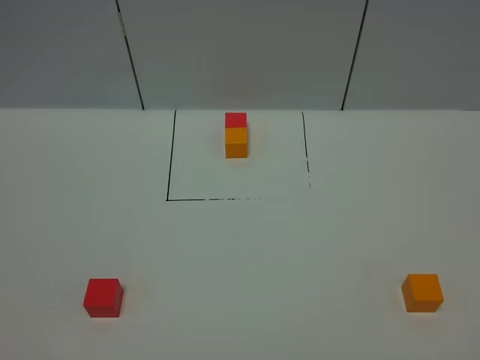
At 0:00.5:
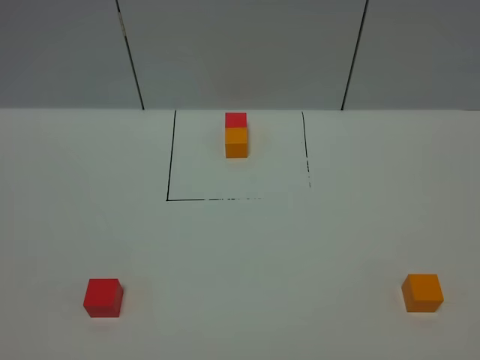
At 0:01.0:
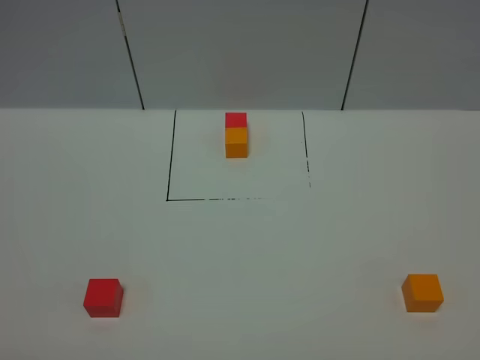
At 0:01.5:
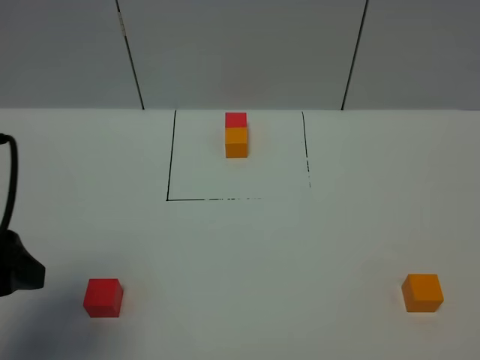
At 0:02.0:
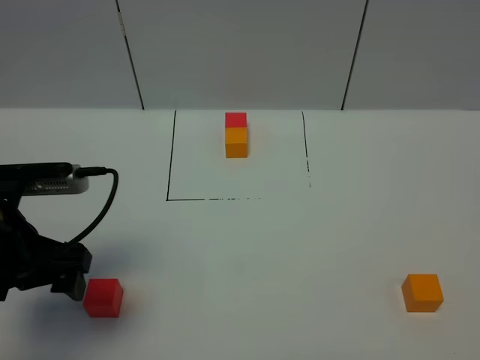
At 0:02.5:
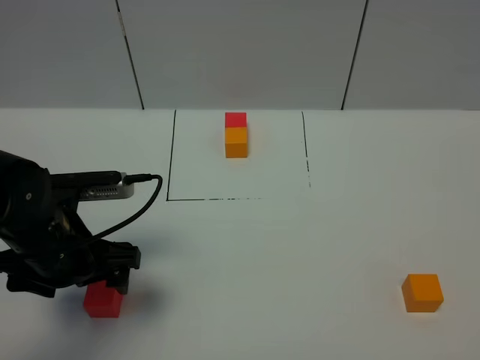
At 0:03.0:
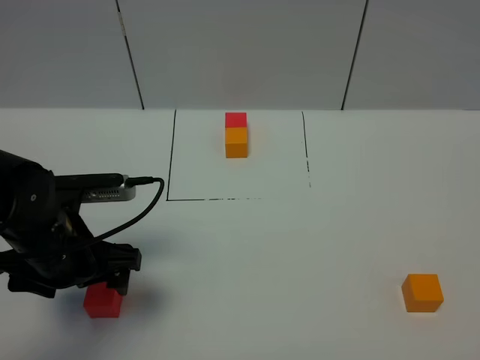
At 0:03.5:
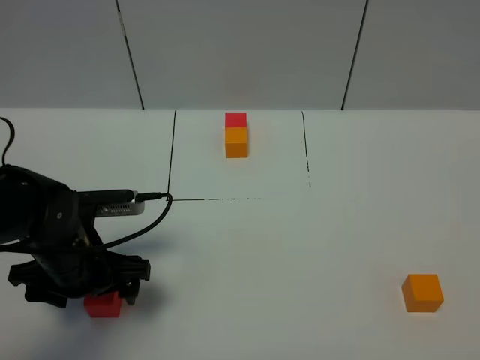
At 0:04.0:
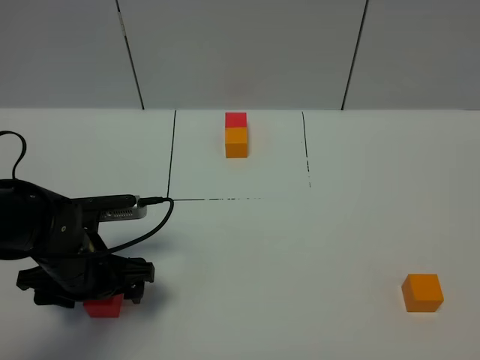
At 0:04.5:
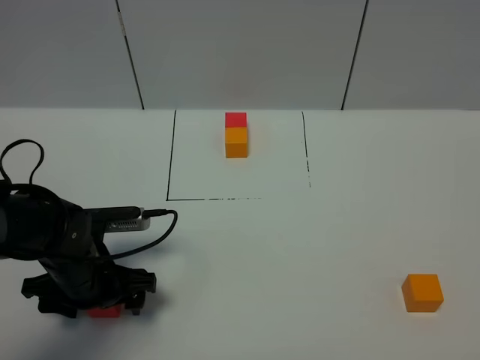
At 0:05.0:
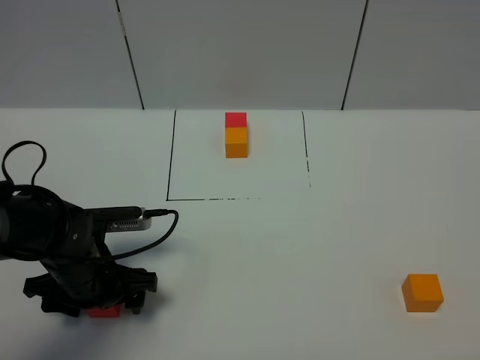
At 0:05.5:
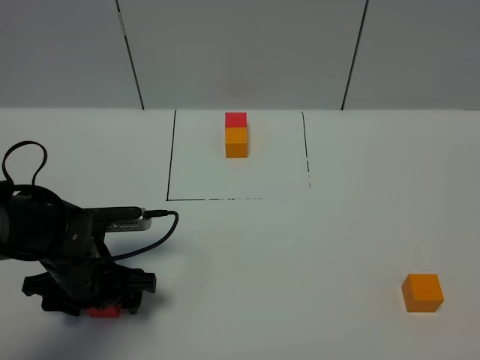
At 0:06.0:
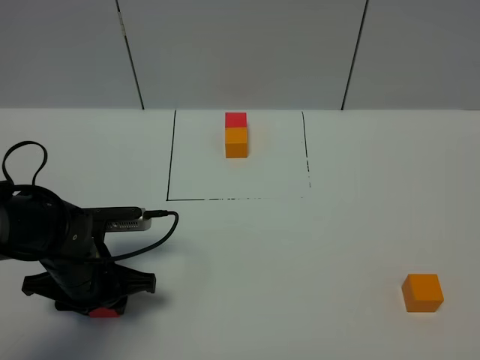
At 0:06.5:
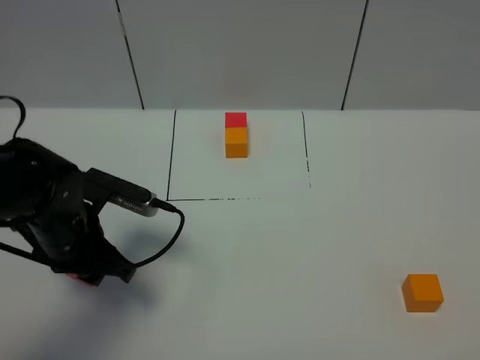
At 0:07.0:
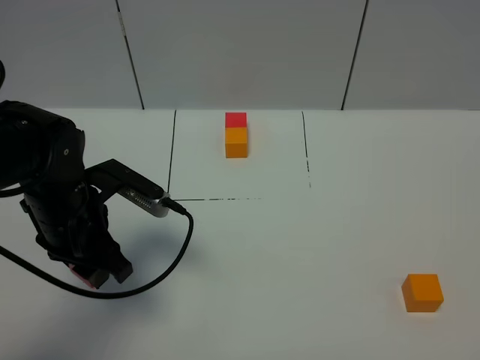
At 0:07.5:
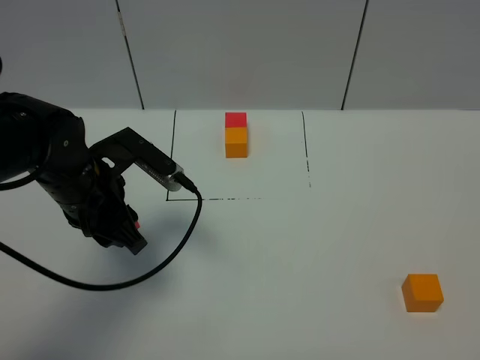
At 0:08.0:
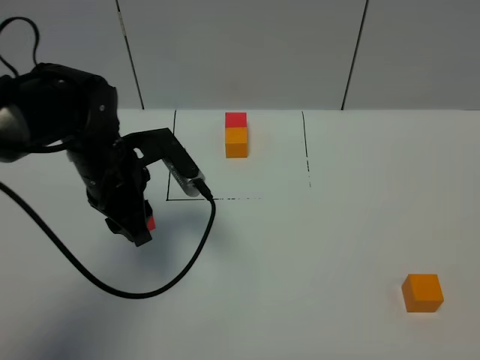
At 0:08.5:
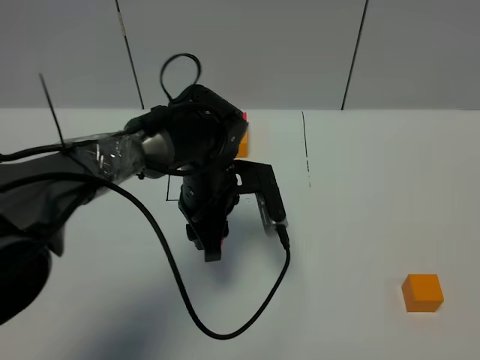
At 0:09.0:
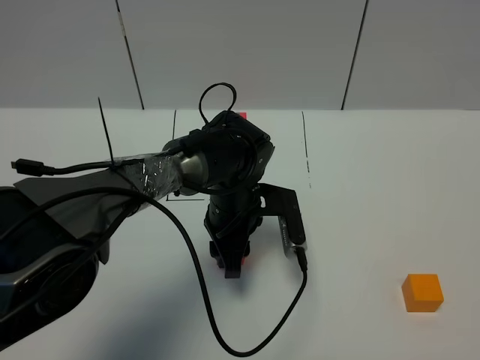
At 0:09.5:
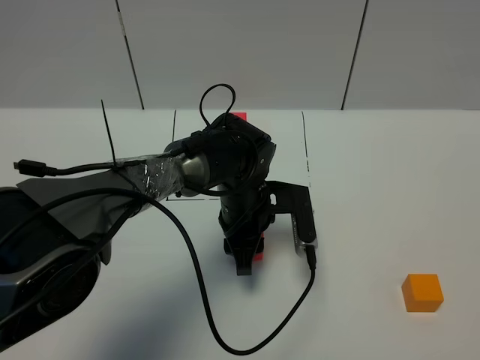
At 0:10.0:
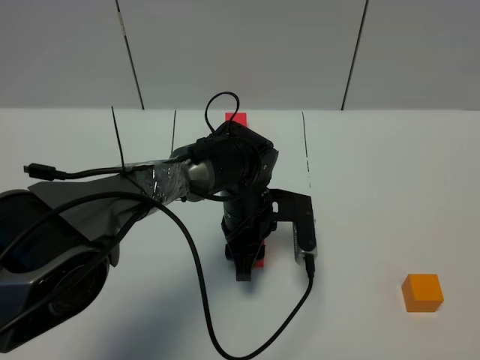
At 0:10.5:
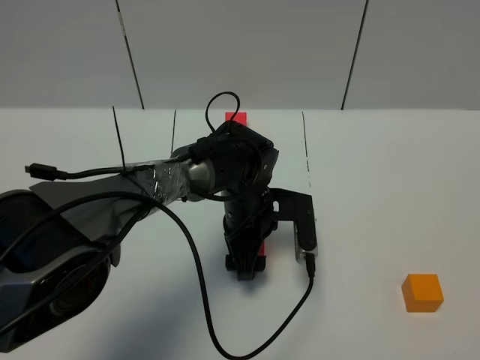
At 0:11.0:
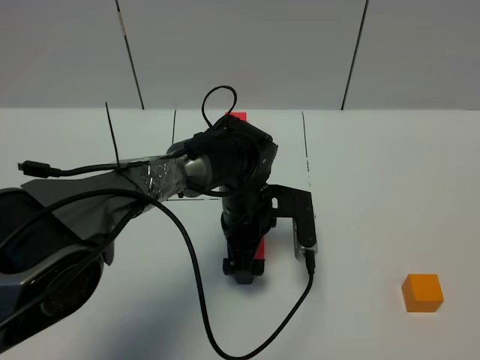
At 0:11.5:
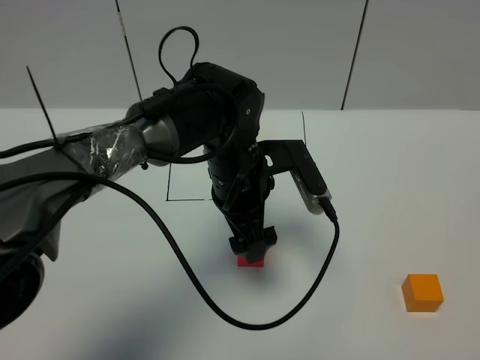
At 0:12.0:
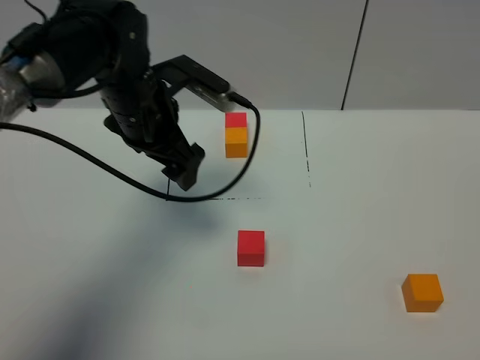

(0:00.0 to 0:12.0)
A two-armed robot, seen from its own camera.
Task of the whole recording: According to the building block template in front, assemble the scattered blocks together.
Step, 0:01.5 - 0:10.5: Put the red cube in the center of the table.
0:00.0 - 0:02.0: The left gripper heads forward, covering some 25 cm.
0:02.0 - 0:04.0: The left gripper travels downward by some 10 cm.
0:04.0 - 0:06.0: The left gripper closes.
0:06.0 - 0:08.0: The left gripper shifts roughly 10 cm upward and forward.
0:08.0 - 0:10.0: The left gripper travels to the right and downward by roughly 20 cm.
0:10.0 - 0:12.0: The left gripper is displaced upward and to the left by about 20 cm, and opens up.

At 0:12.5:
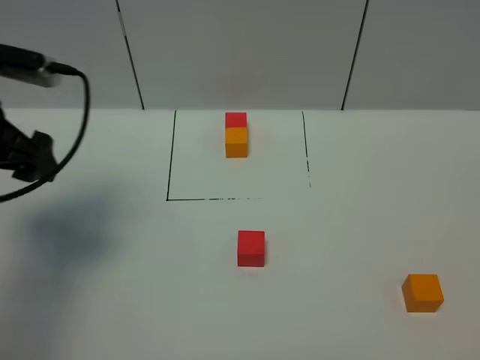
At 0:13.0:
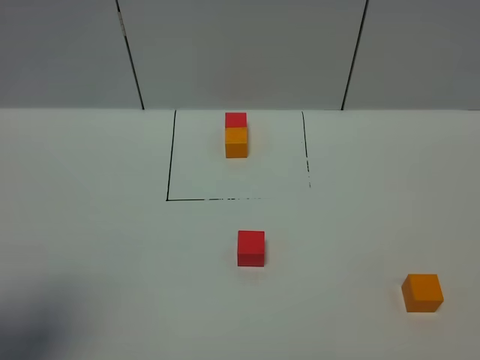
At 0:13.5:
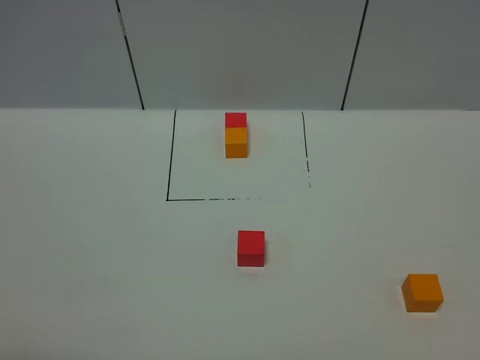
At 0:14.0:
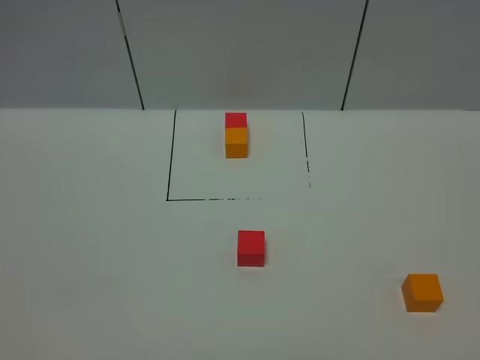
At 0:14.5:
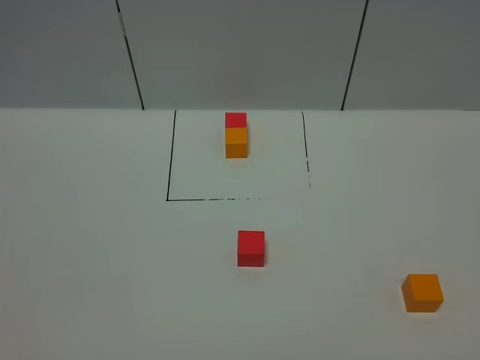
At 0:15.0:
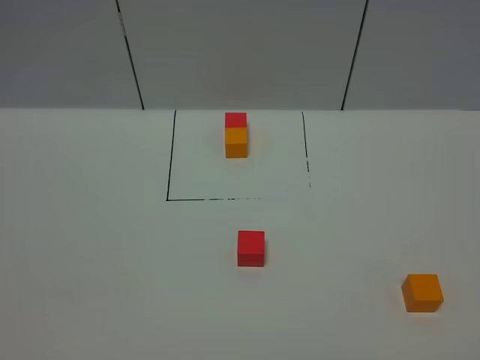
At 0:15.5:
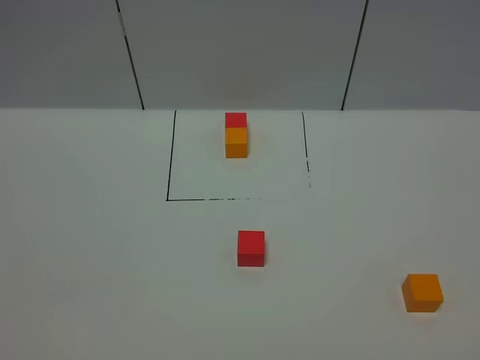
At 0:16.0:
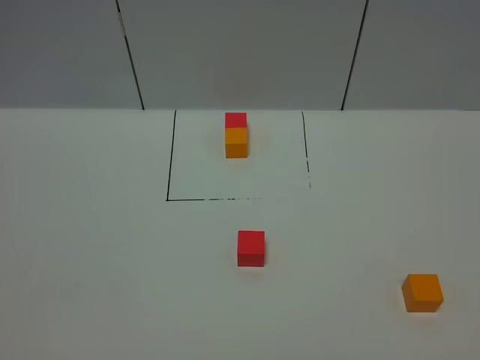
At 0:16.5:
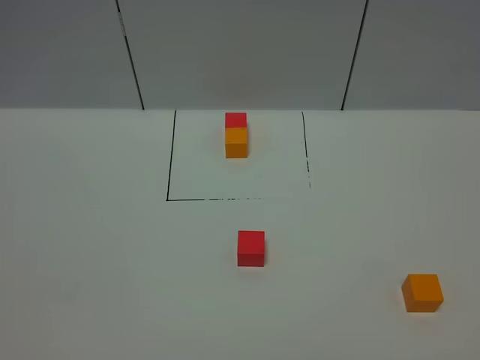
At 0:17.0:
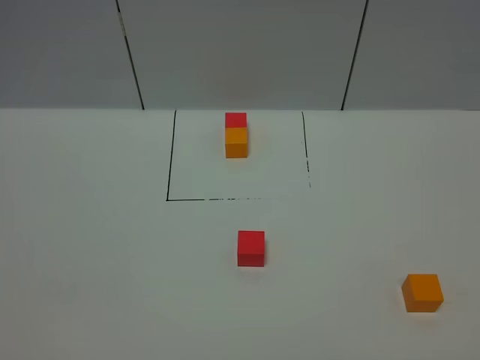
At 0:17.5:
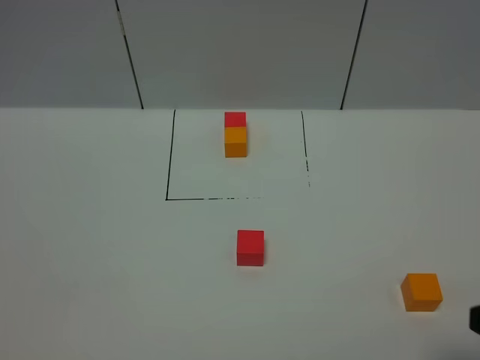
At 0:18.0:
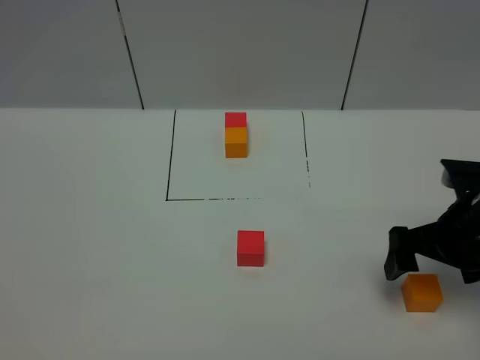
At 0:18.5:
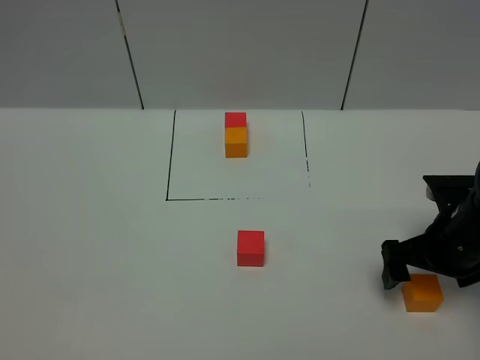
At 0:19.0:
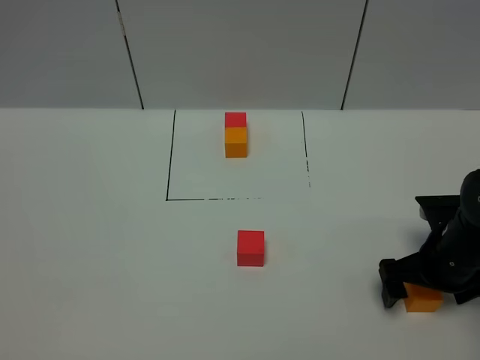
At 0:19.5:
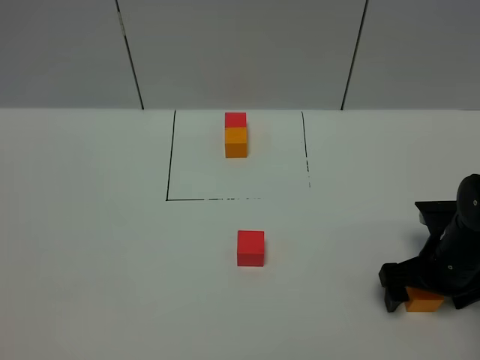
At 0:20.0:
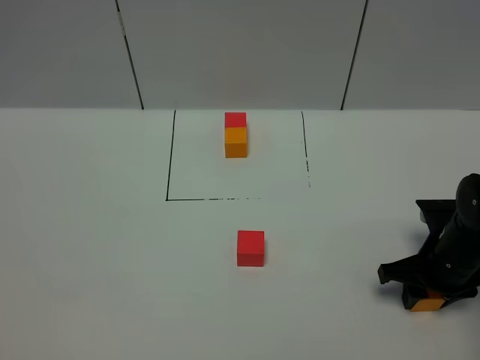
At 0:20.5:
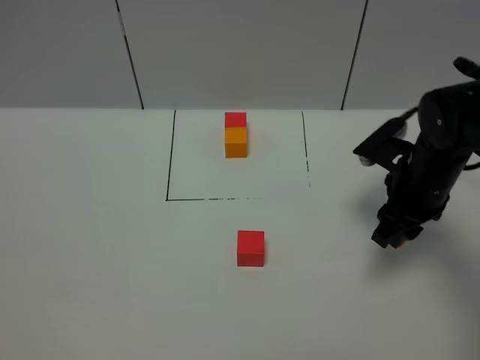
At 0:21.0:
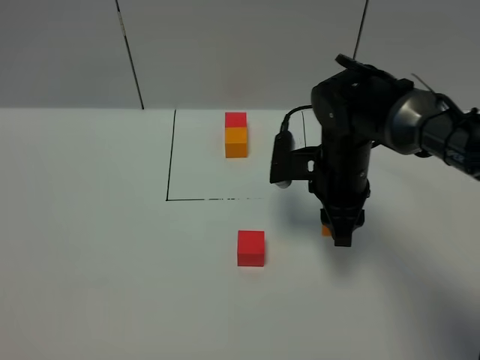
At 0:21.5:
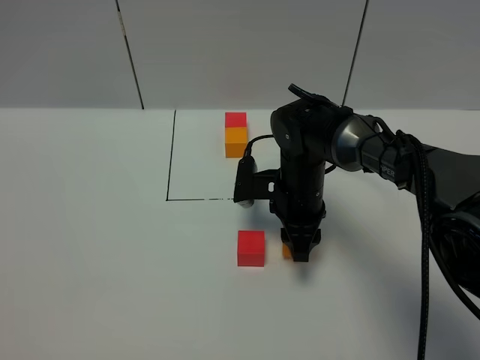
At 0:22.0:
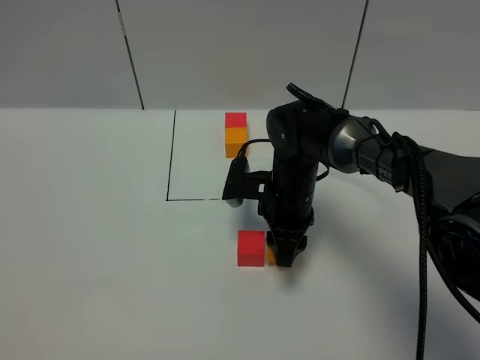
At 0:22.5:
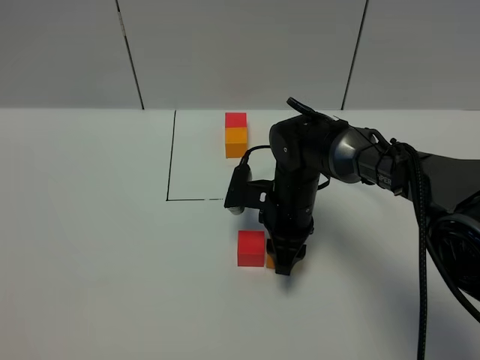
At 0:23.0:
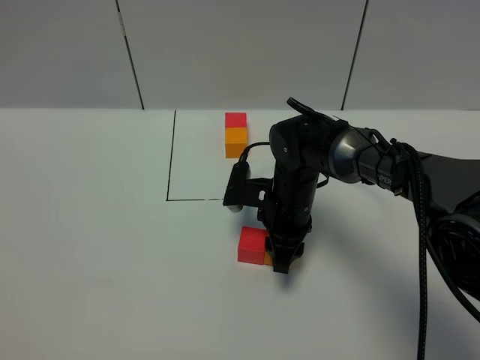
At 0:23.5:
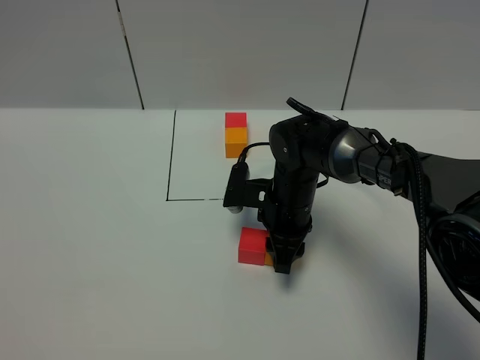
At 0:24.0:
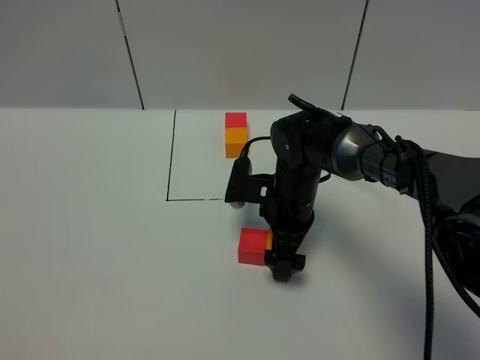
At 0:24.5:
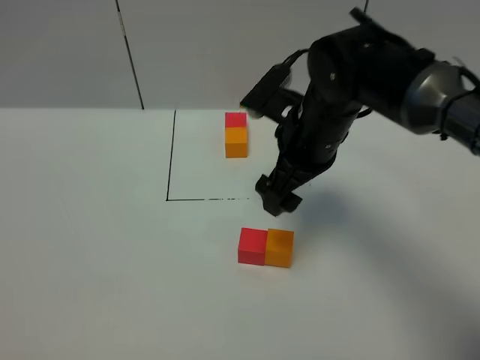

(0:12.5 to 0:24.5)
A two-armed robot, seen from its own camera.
Task of the whole recording: According to the building block template in front, assemble the scattered blocks together.
Step, 0:12.5 - 0:23.5: Put the orange cube on the right of the red cube.
0:12.5 - 0:14.5: The left gripper is displaced backward by approximately 30 cm.
0:14.5 - 0:16.5: The two grippers keep their place.
0:16.5 - 0:18.5: The right gripper travels forward and downward by roughly 35 cm.
0:18.5 - 0:20.5: The right gripper shifts some 5 cm forward, and closes.
0:20.5 - 0:22.5: The right gripper moves to the left and downward, roughly 15 cm.
0:22.5 - 0:24.5: The right gripper goes approximately 15 cm upward, and opens up.

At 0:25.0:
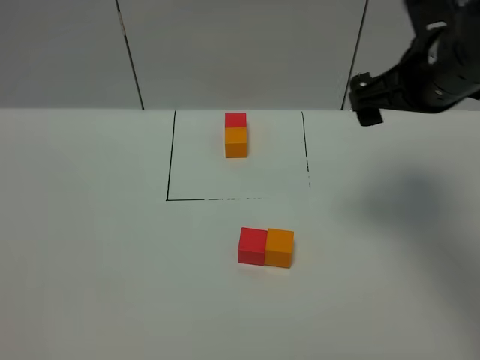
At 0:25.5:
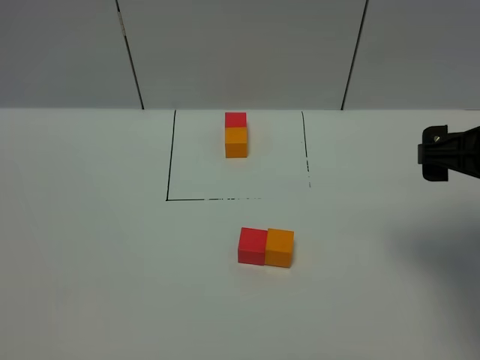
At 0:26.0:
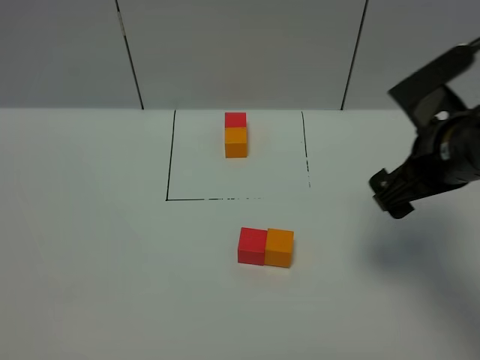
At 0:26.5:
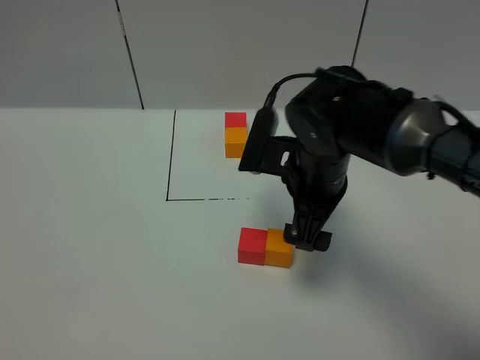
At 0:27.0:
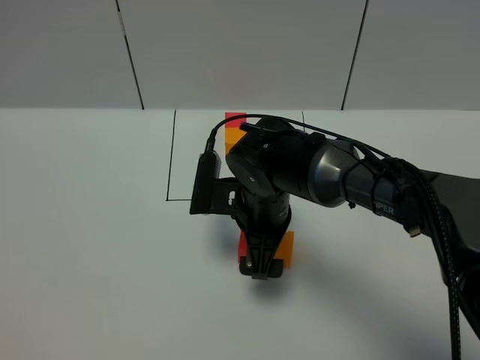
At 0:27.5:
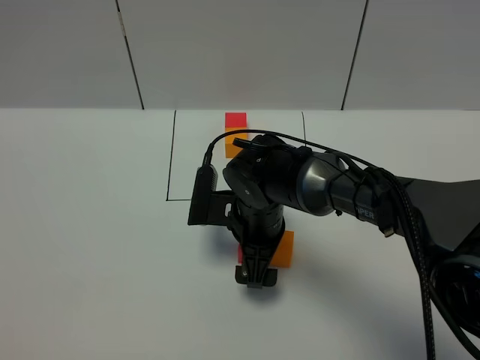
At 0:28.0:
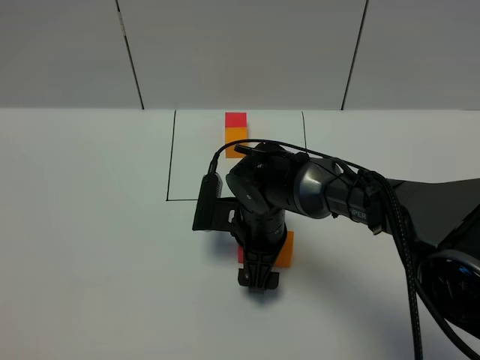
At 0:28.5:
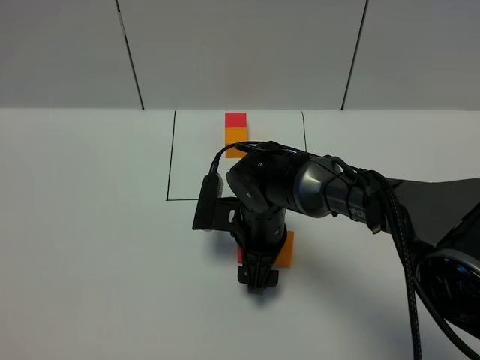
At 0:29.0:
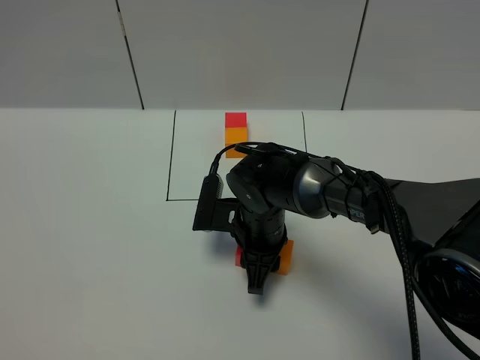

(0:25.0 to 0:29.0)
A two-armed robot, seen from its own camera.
Task of the whole recording: According to the building block template in front, assemble the scattered blocks together.
0:25.0 - 0:27.0: The right gripper shifts some 25 cm to the left and downward.
0:27.0 - 0:29.0: The right gripper goes approximately 5 cm downward, and closes.
